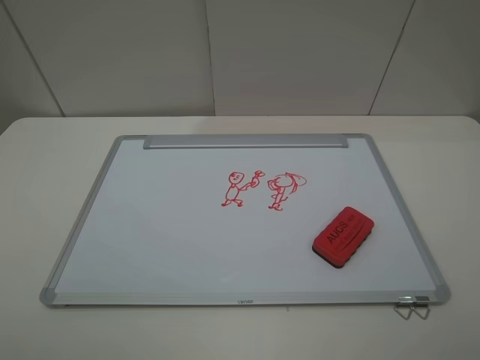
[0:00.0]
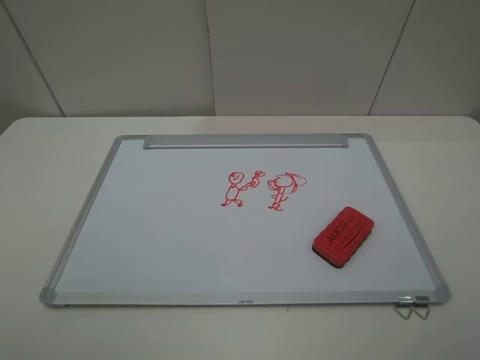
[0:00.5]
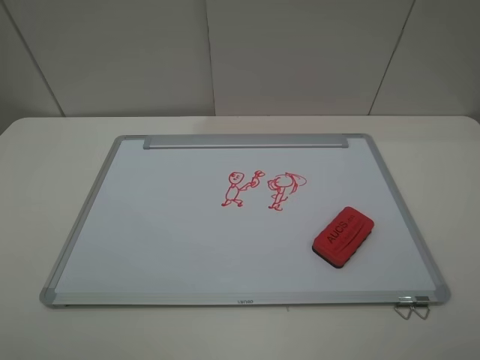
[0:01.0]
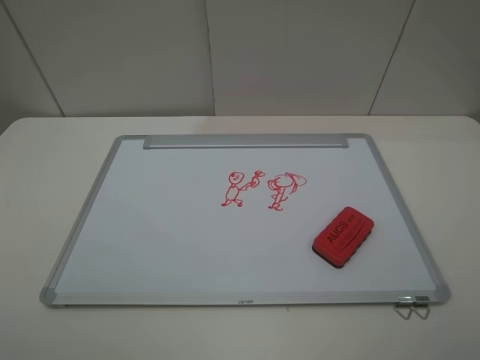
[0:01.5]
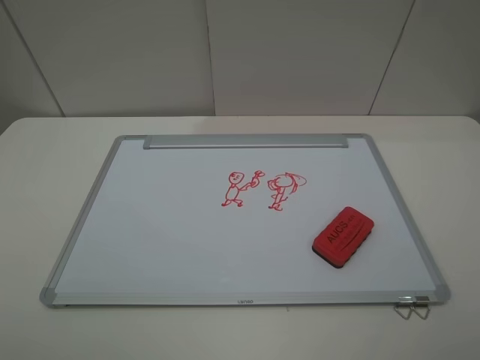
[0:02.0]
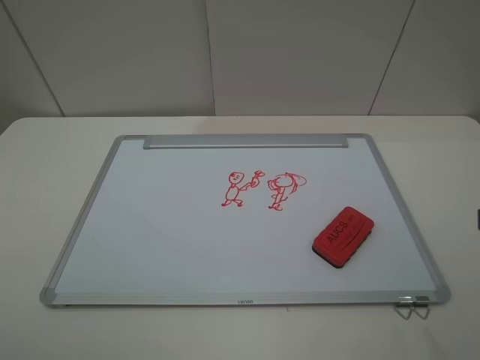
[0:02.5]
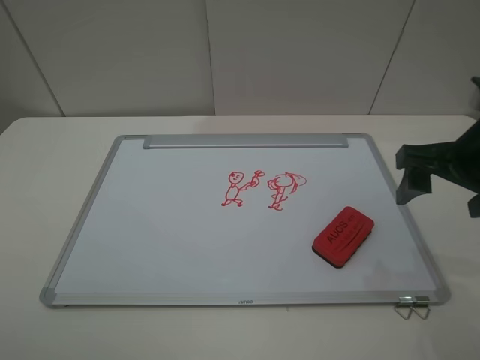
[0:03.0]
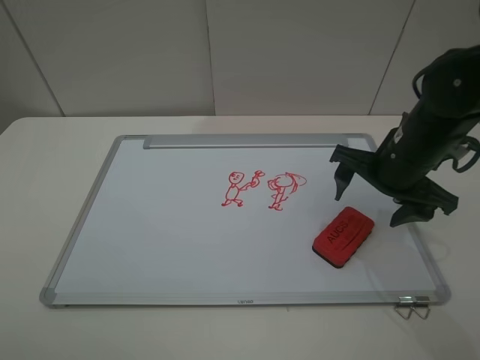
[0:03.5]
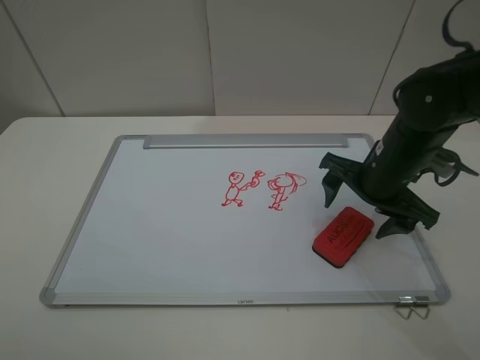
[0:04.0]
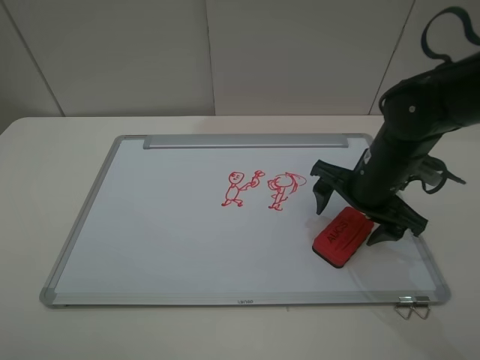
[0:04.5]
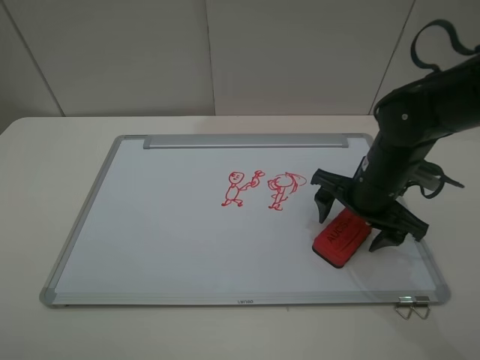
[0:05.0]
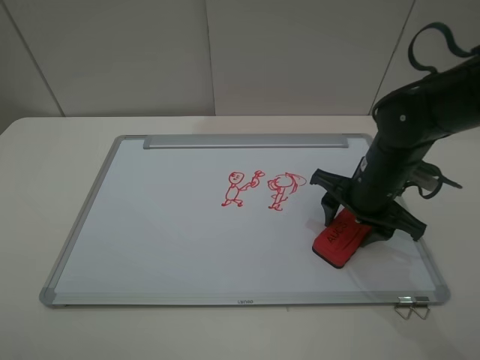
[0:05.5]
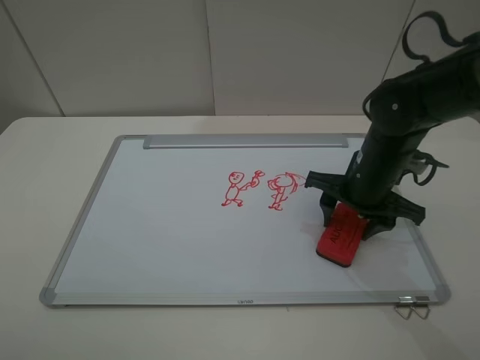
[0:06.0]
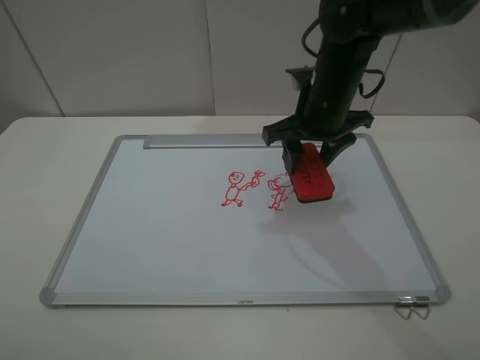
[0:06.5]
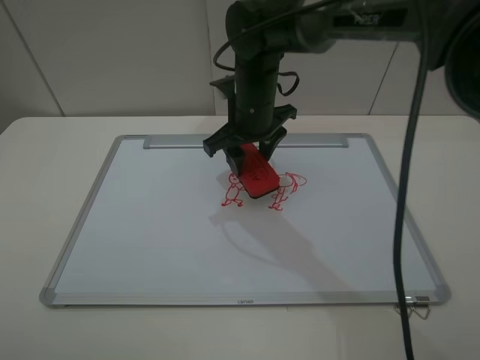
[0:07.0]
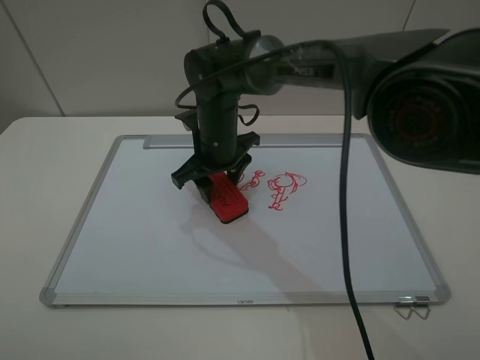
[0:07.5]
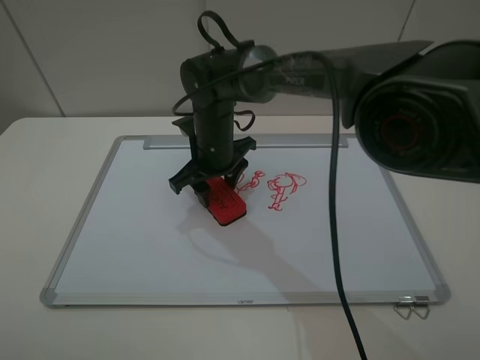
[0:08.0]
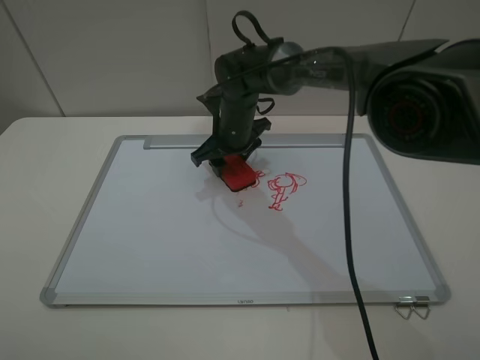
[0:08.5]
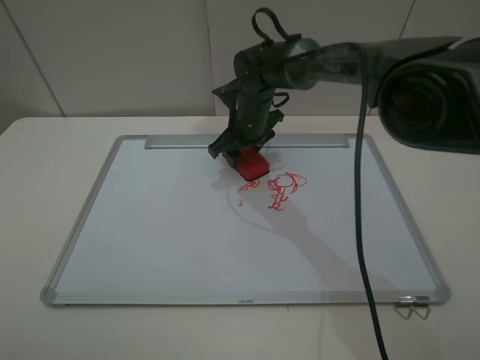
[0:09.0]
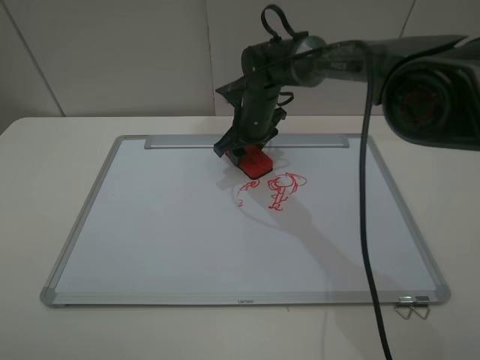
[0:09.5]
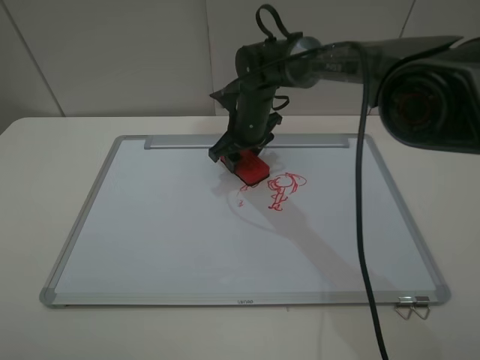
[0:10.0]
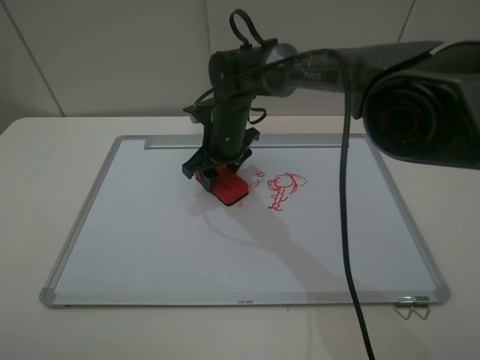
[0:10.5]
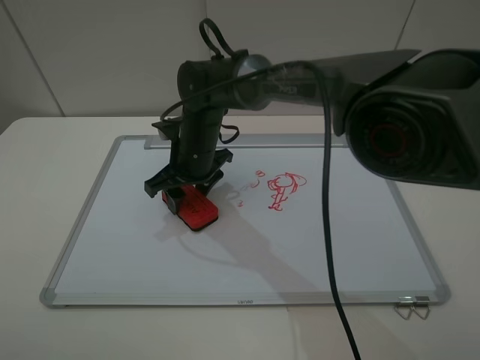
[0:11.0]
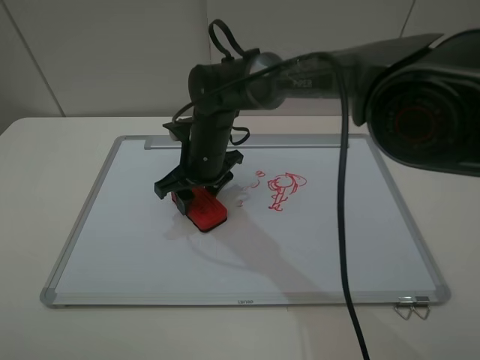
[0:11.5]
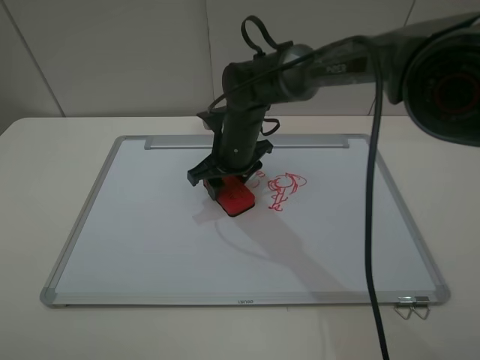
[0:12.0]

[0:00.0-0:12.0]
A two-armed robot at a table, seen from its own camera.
Step, 0:00.0 to 0:05.5: Grasp the eraser with the right gripper.
0:00.0 to 0:02.0: Both grippers stay put.
0:02.0 to 0:04.0: The right gripper heads forward and downward, covering some 30 cm.
0:04.0 to 0:06.0: The right gripper closes.
0:06.0 to 0:08.0: The right gripper goes approximately 20 cm to the left.
0:08.0 to 0:10.0: The right gripper goes roughly 10 cm forward and to the right.
0:10.0 to 0:12.0: The right gripper travels backward by roughly 5 cm, and travels to the left and back again, about 10 cm each way.

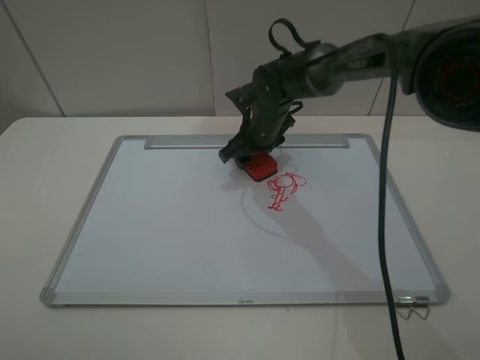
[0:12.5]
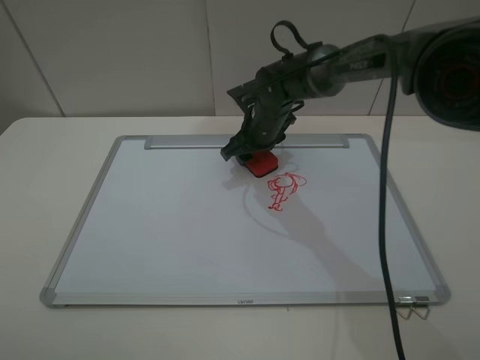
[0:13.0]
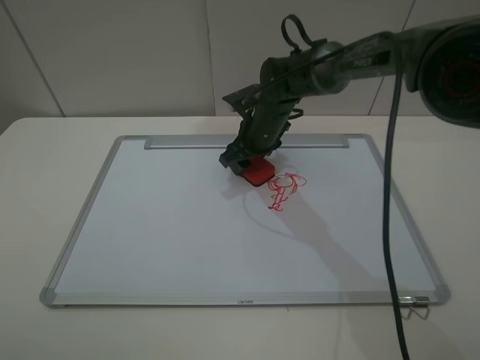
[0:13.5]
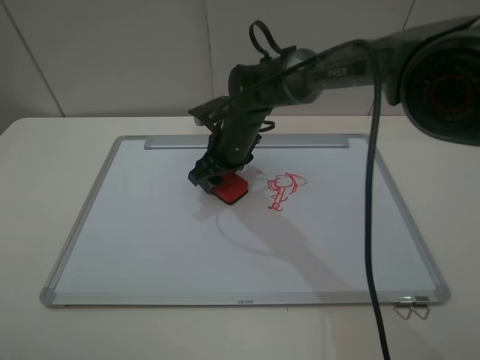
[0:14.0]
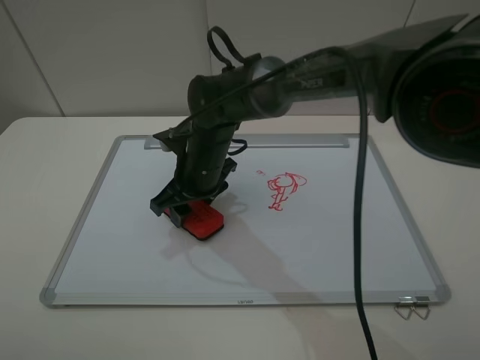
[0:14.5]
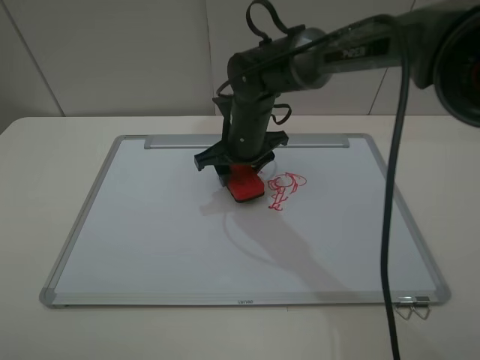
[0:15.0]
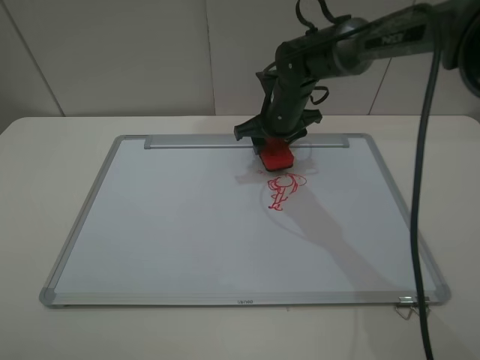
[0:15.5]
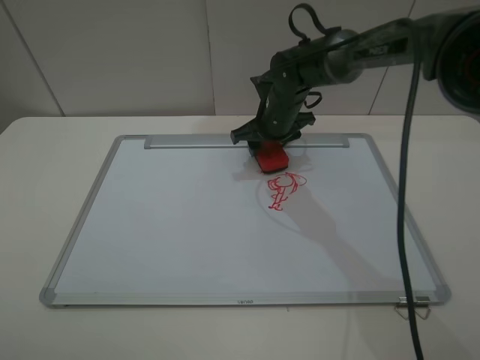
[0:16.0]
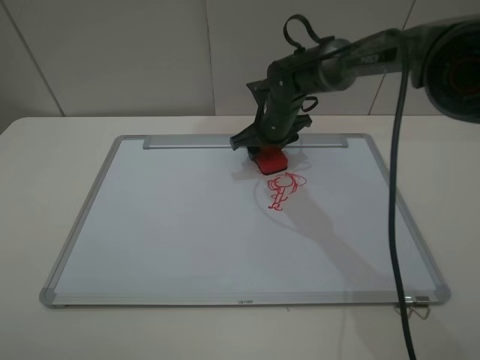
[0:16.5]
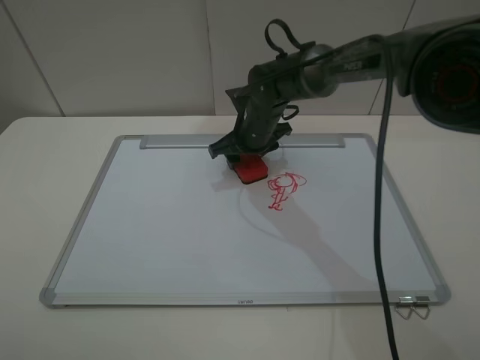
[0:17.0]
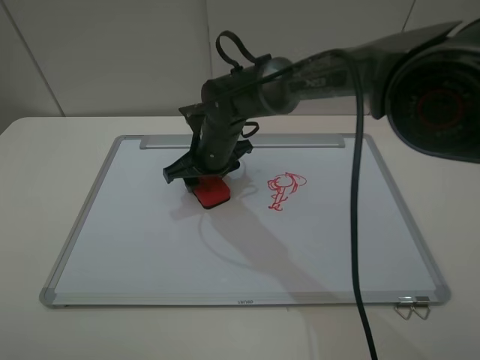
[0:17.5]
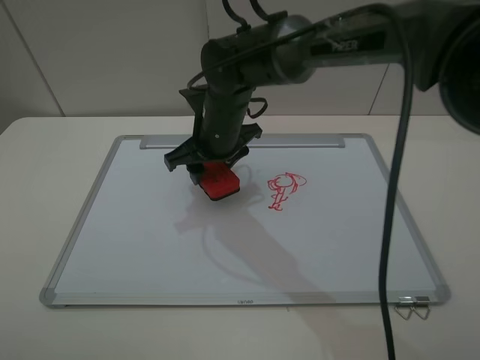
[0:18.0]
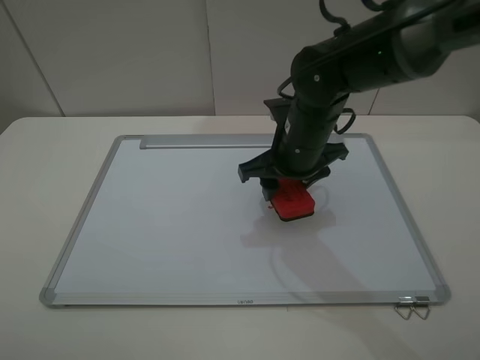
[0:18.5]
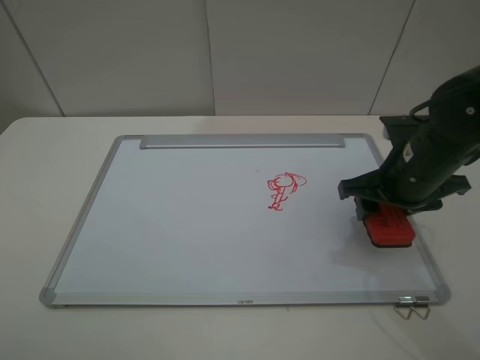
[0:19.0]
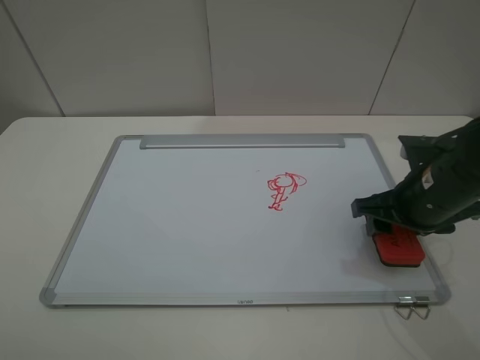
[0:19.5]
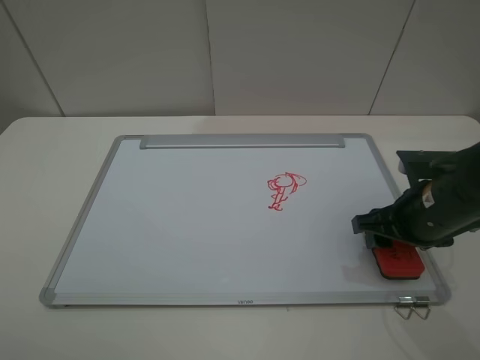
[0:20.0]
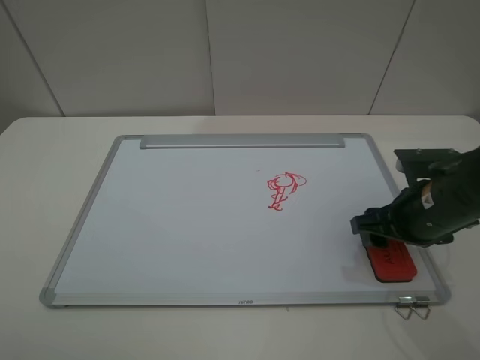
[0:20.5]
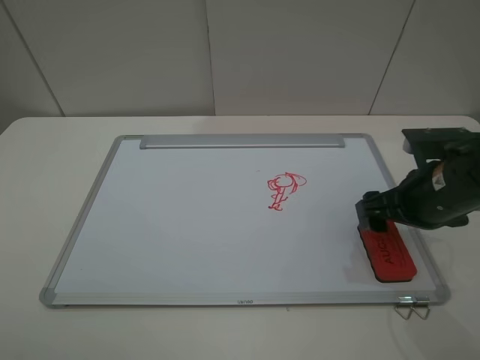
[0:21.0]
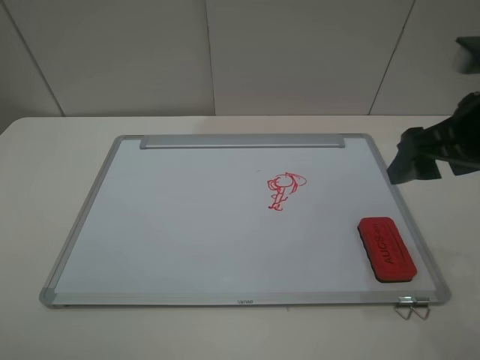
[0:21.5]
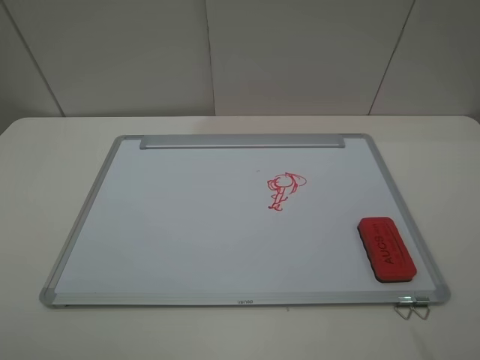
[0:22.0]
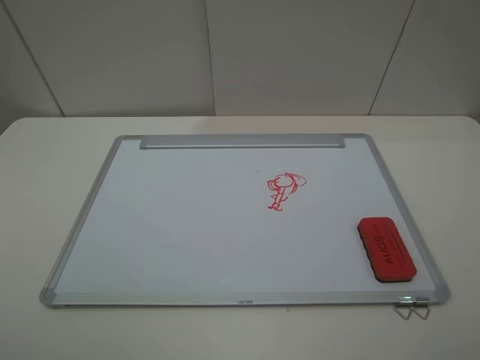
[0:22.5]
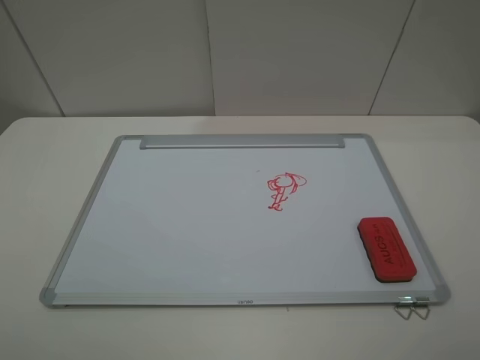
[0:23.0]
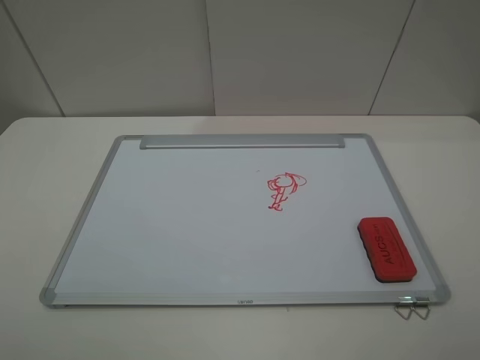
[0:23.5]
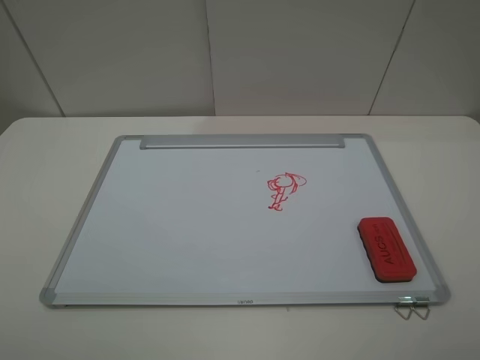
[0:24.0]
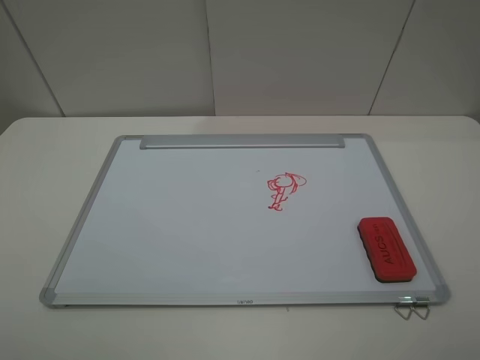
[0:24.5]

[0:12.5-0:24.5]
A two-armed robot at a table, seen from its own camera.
Step, 0:12.5 to 0:17.5: Grasp the eraser and wipe the blackboard with the right gripper.
Step, 0:18.0 to 0:20.5: Place the eraser with the right gripper.
0:12.5 to 0:14.5: The right gripper heads backward and to the left, covering roughly 15 cm.
0:14.5 to 0:16.5: The right gripper moves to the right and forward, about 15 cm.
0:16.5 to 0:18.5: The right gripper travels backward and upward by approximately 15 cm.
0:18.5 to 0:20.5: The right gripper goes roughly 15 cm to the right and backward.
0:20.5 to 0:22.5: The right gripper shifts about 30 cm upward and backward, and opens up.
